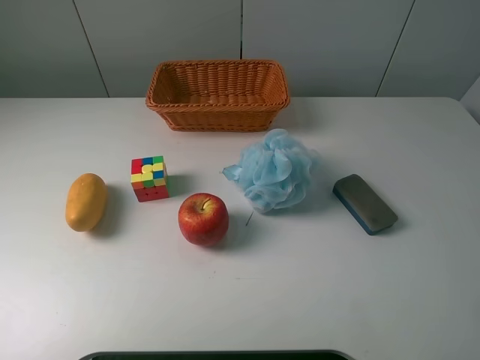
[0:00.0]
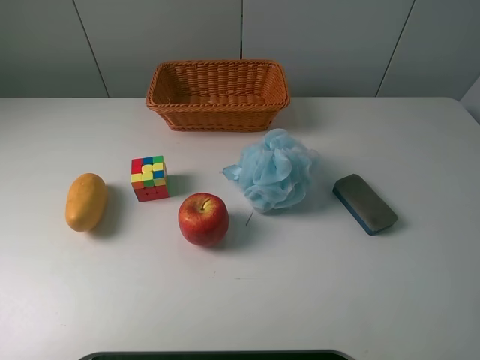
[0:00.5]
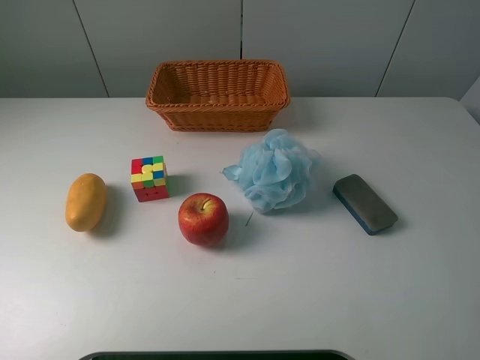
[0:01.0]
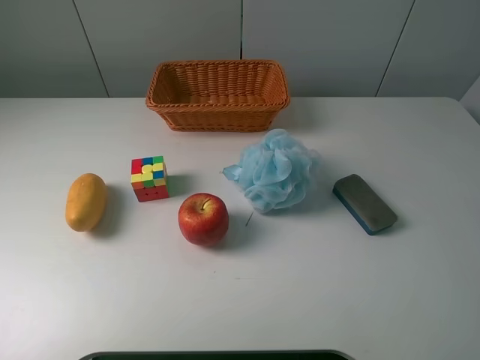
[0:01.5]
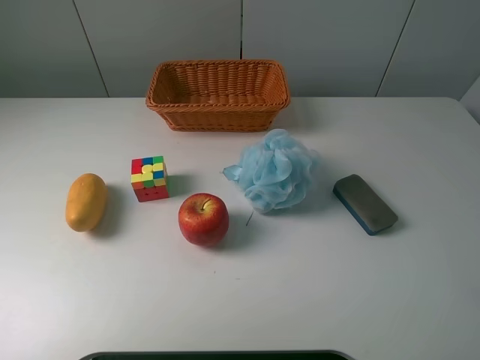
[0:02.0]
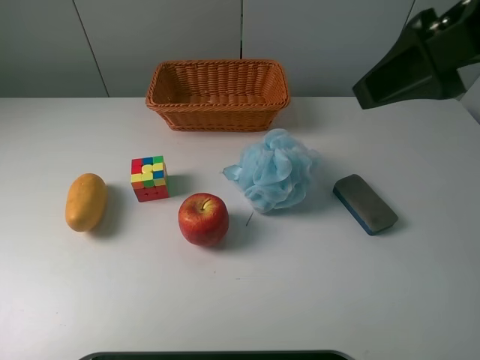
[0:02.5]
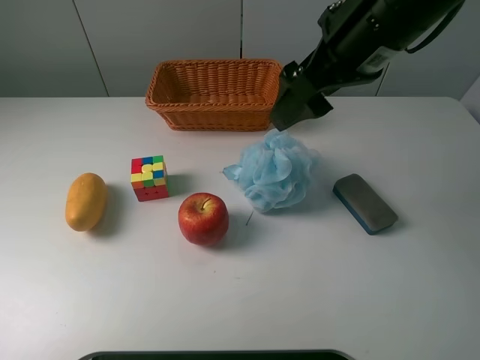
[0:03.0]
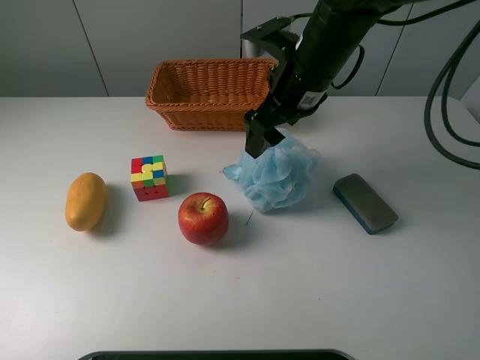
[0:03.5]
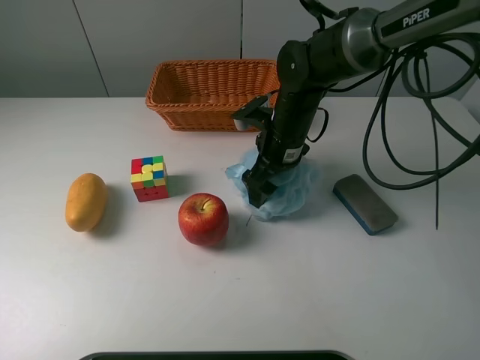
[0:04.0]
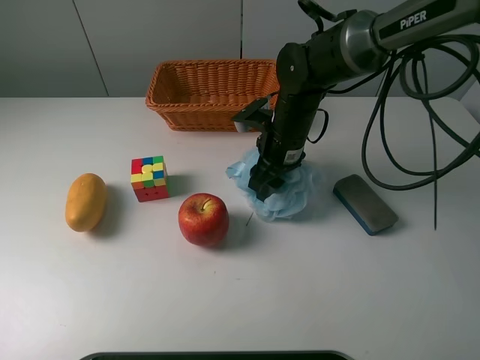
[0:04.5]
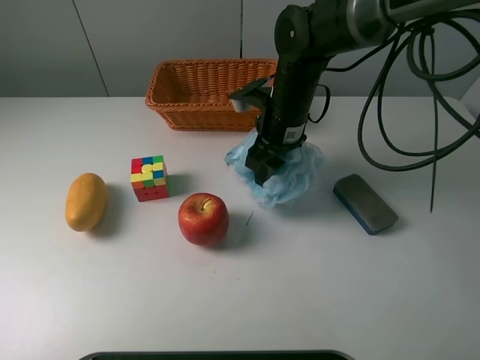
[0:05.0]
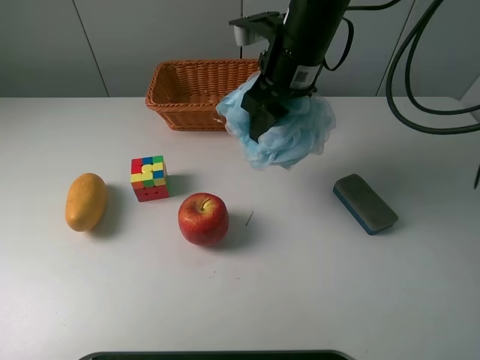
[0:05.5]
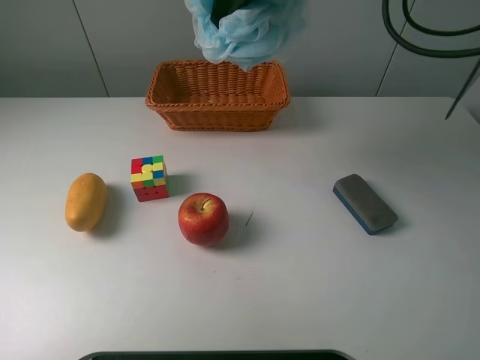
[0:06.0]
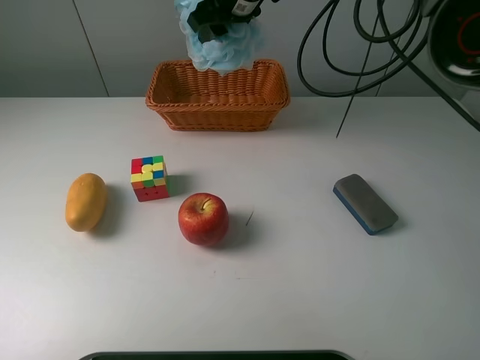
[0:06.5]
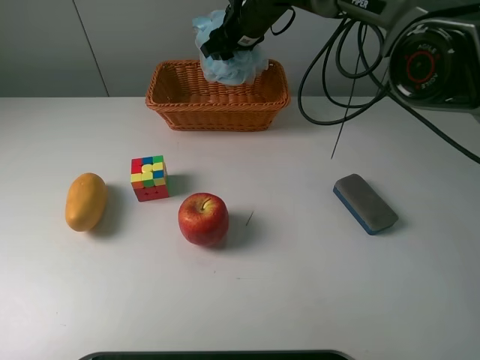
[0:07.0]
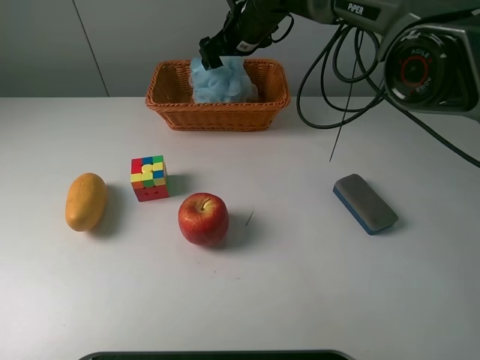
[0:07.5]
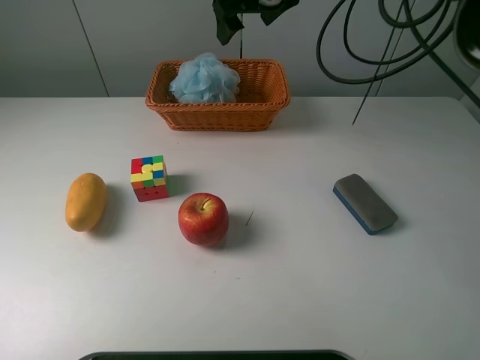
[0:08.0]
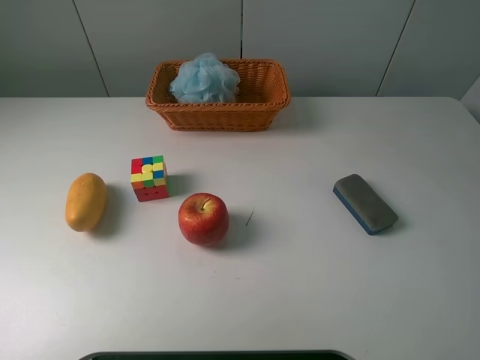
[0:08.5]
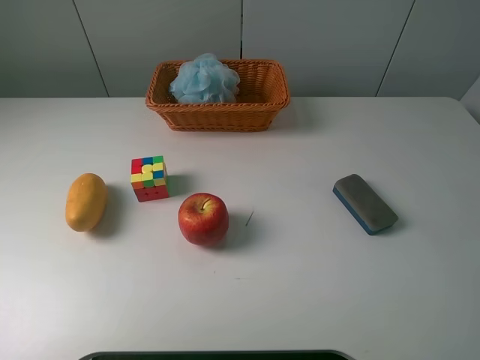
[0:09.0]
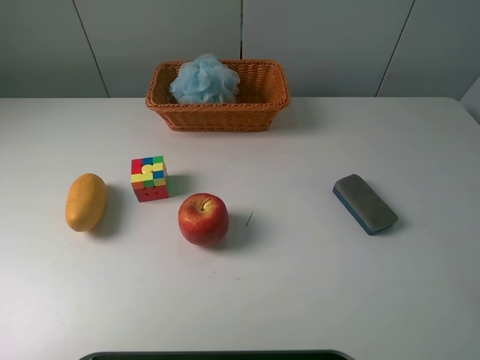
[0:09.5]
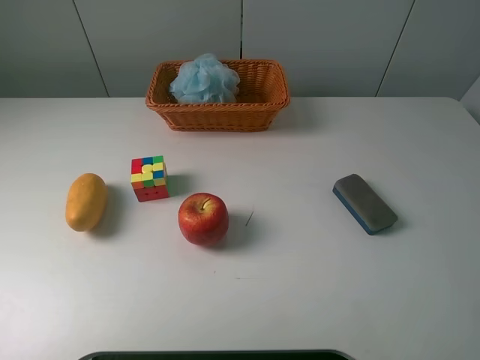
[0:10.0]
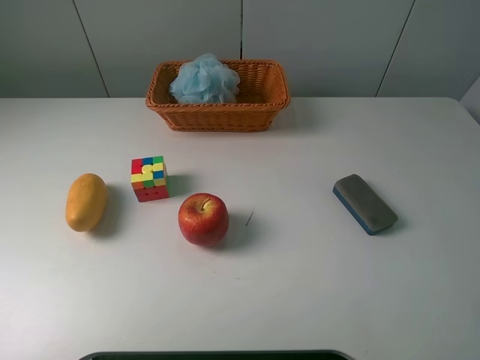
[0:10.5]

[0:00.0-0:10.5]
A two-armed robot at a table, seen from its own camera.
Task of the whole recording: use a picker to grab the item closest to the apple and place it in the basket.
Step, 0:00.0 to 0:04.5: Grasp the shower sphere with the right gripper.
Step, 0:05.0 to 0:07.5: Place the shower sphere into the basket with the right gripper.
0:02.0 to 0:04.0: The right gripper shifts roughly 40 cm forward, downward and to the left.
0:04.0 to 0:06.5: The right gripper moves upward and forward, about 20 cm, and closes its fingers.
0:06.5 to 0:08.5: The right gripper moves upward, backward and to the right, approximately 25 cm, and opens.

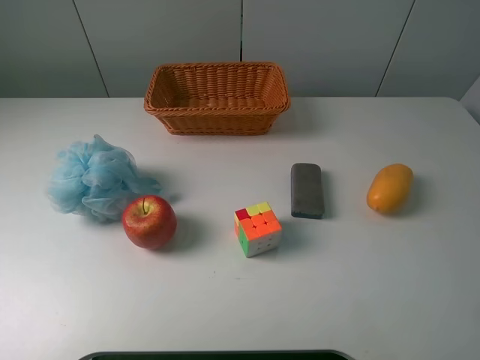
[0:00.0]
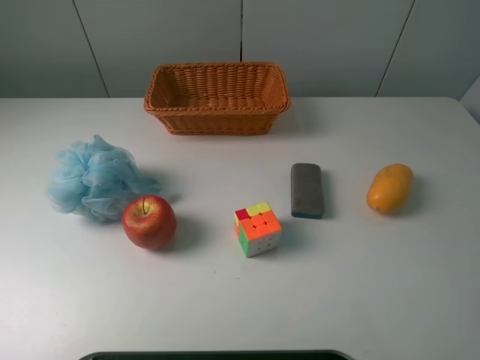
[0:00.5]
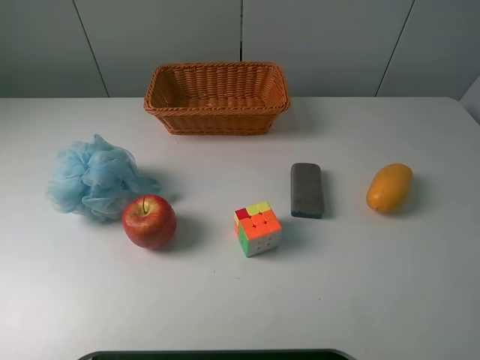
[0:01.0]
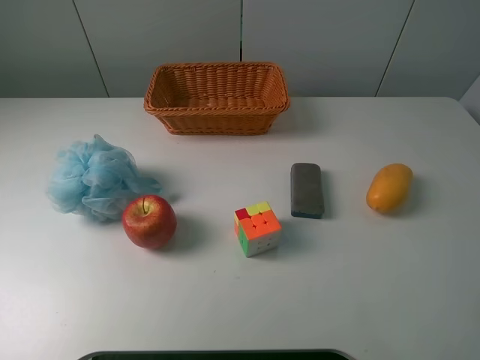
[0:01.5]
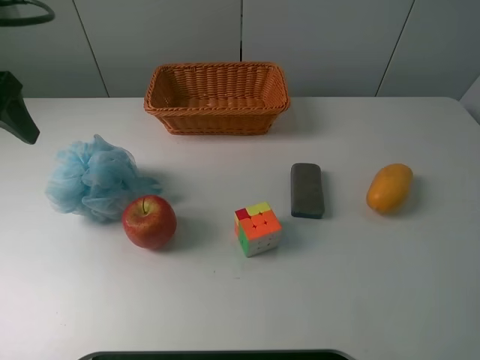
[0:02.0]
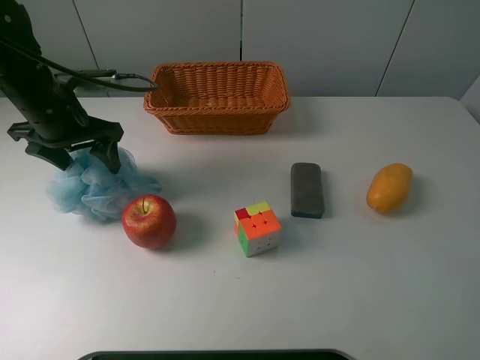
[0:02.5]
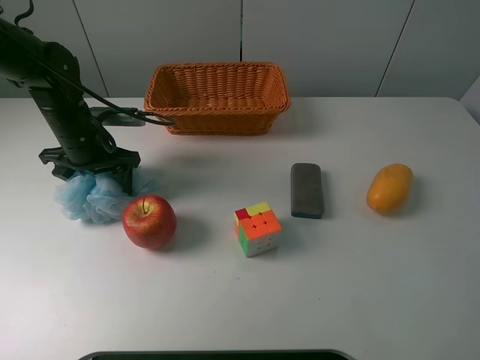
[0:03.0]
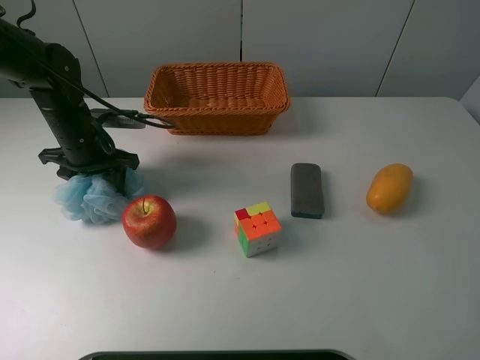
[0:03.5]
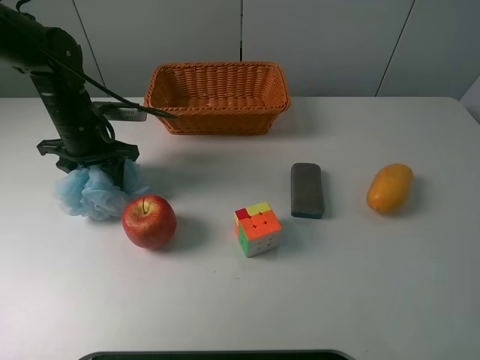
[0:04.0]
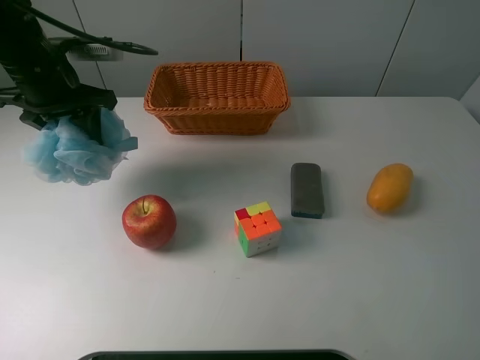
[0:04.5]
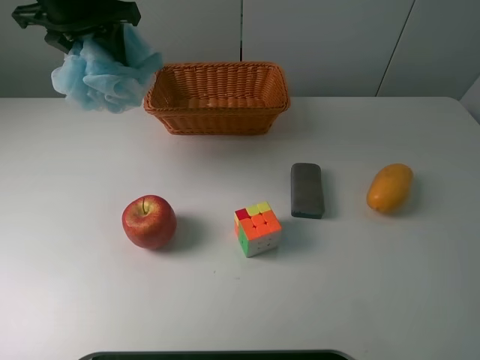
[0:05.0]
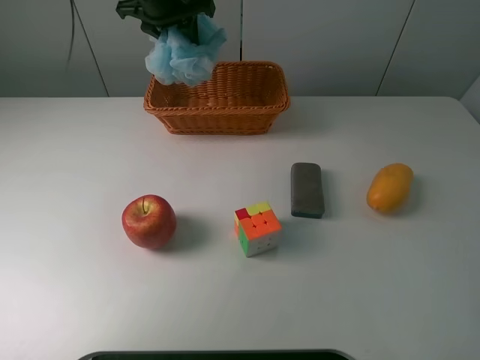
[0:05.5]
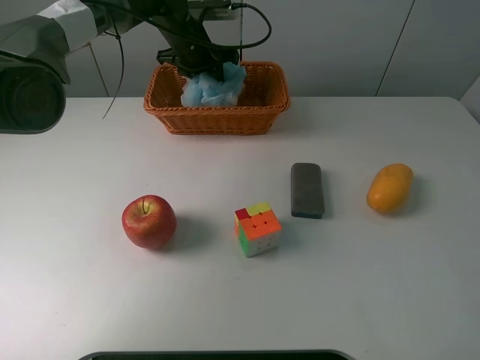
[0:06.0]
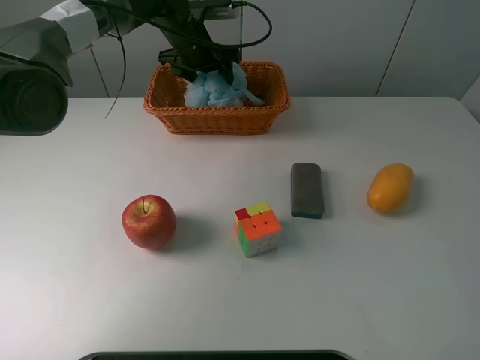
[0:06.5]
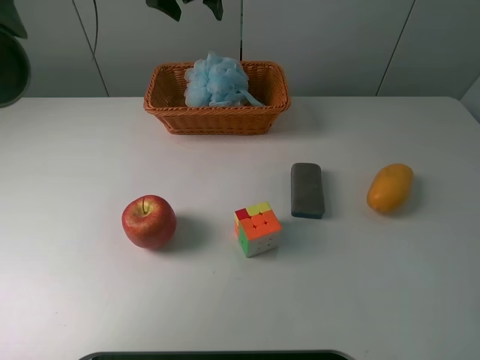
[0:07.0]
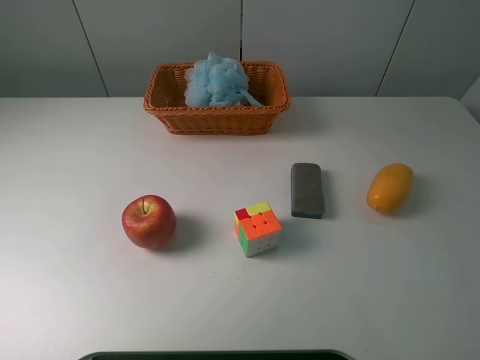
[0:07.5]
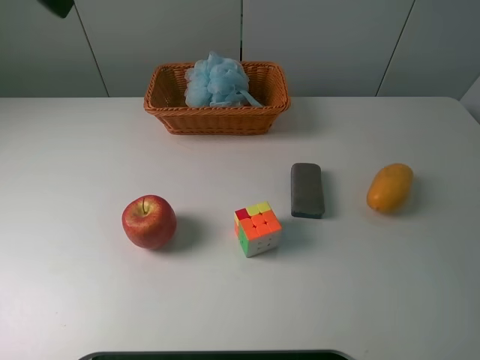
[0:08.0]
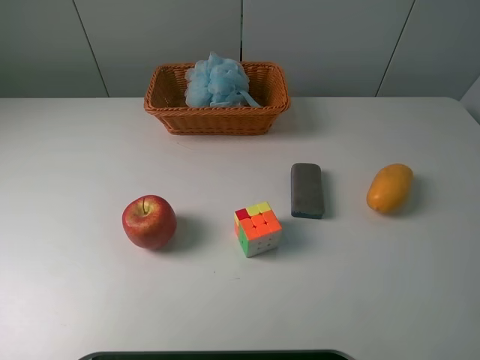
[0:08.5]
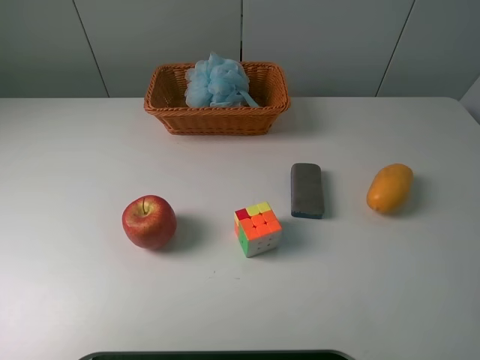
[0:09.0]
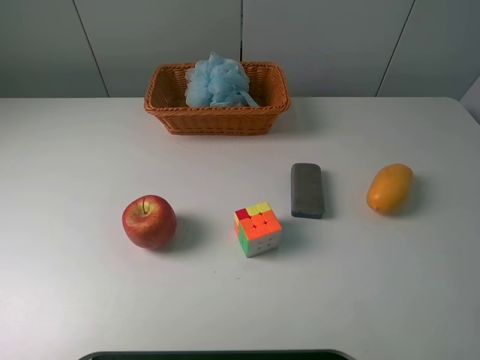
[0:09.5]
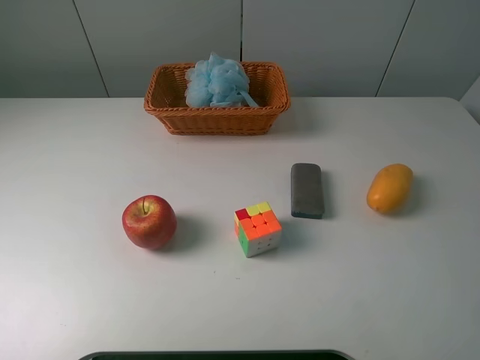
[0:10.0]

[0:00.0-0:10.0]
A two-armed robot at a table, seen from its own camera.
Task of the whole recording: use a picker to grab the item closest to the apple and place it in the basket.
Step, 0:00.0 to 0:03.5: Grasp the shower sphere with the left gripper.
Step, 0:04.0 to 0:06.5: Place the shower sphere into the basket with the left gripper.
0:00.0 to 0:02.0: The left gripper moves forward, approximately 25 cm.
0:02.0 to 0:04.0: The left gripper is displaced downward, forward and to the right by some 20 cm, and closes its fingers.
0:04.0 to 0:06.0: The left gripper travels forward and to the right by roughly 20 cm, and travels upward and back again, roughly 15 cm each way.
0:06.0 to 0:08.0: The left gripper is displaced backward, upward and to the left by about 40 cm, and opens up.
